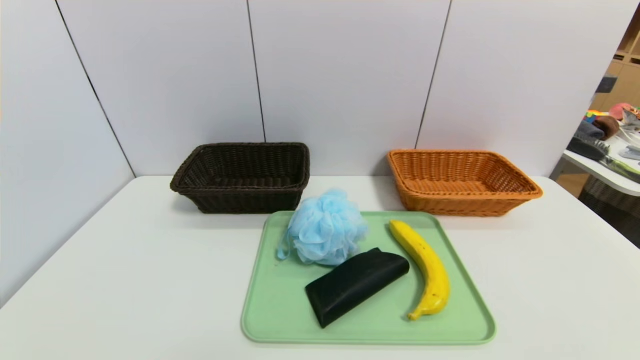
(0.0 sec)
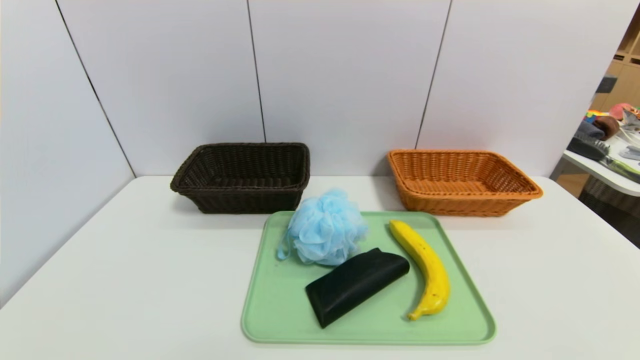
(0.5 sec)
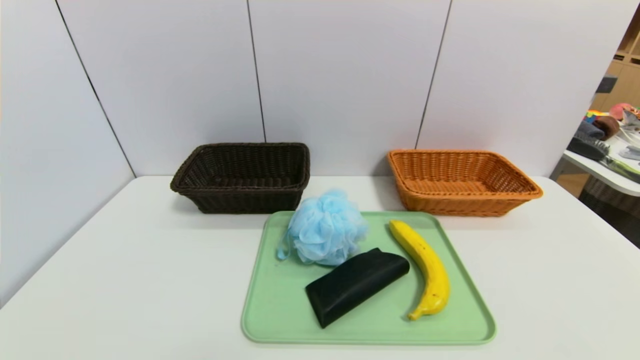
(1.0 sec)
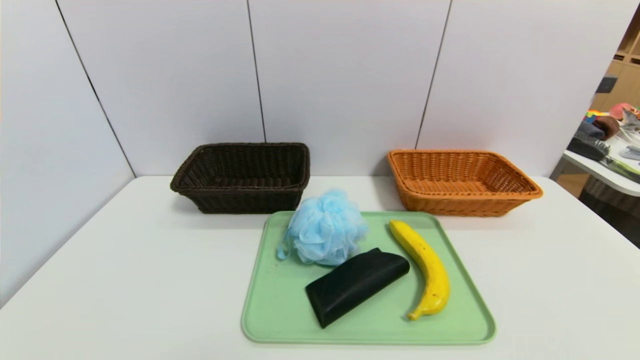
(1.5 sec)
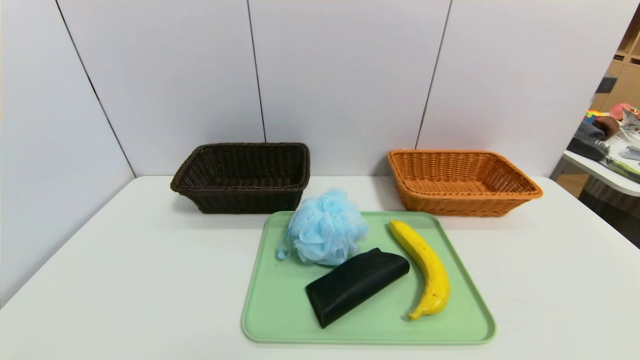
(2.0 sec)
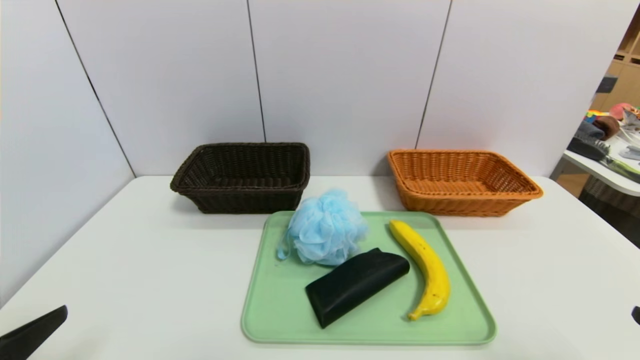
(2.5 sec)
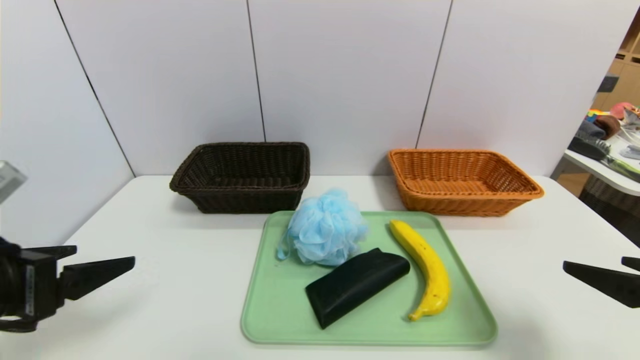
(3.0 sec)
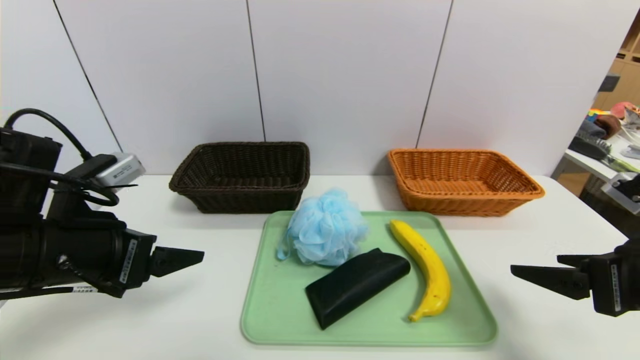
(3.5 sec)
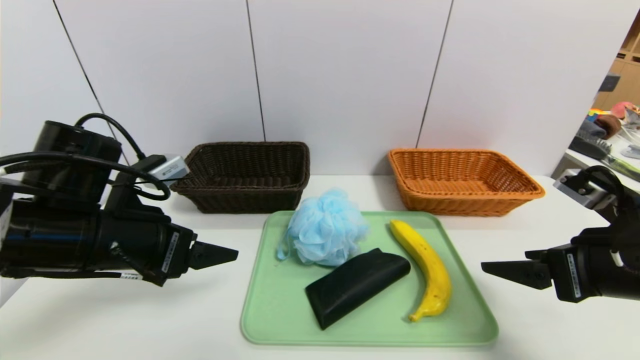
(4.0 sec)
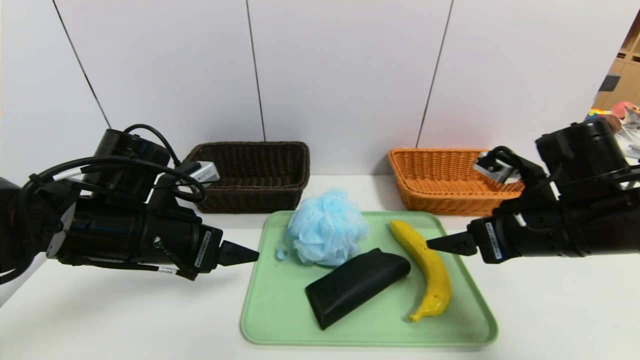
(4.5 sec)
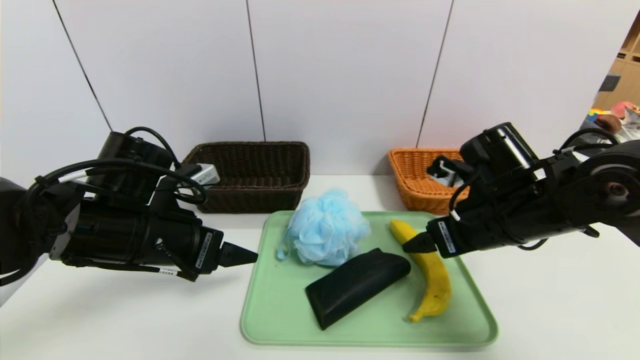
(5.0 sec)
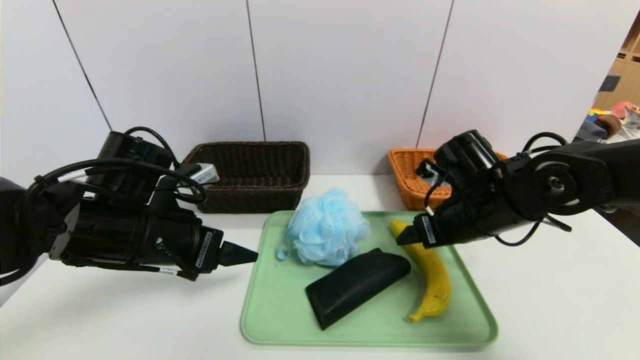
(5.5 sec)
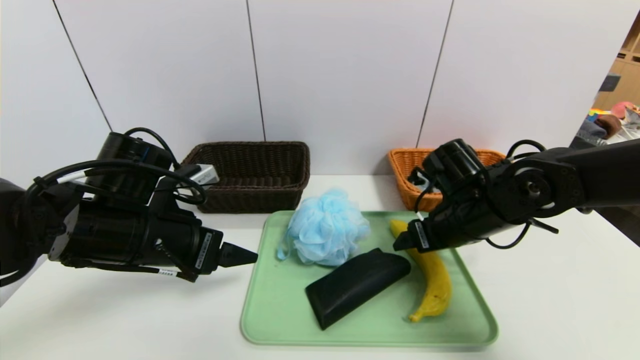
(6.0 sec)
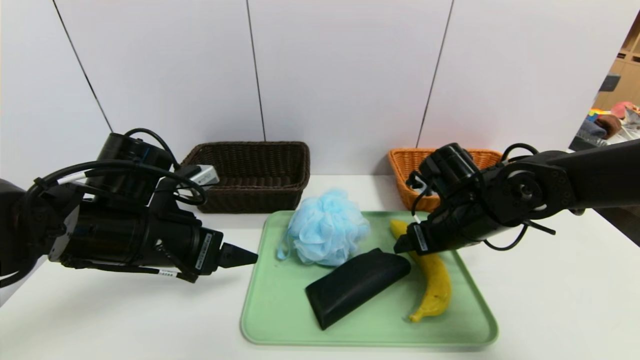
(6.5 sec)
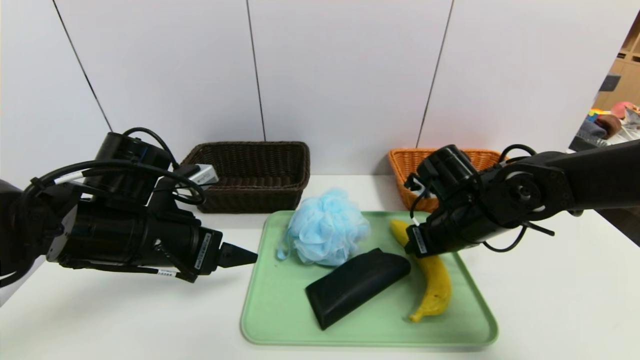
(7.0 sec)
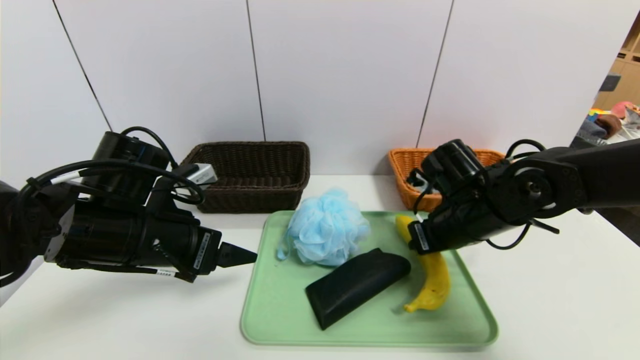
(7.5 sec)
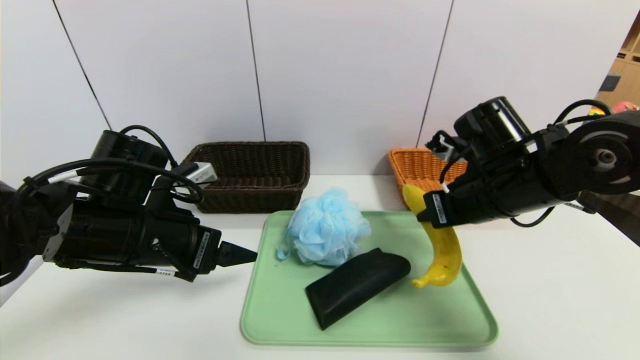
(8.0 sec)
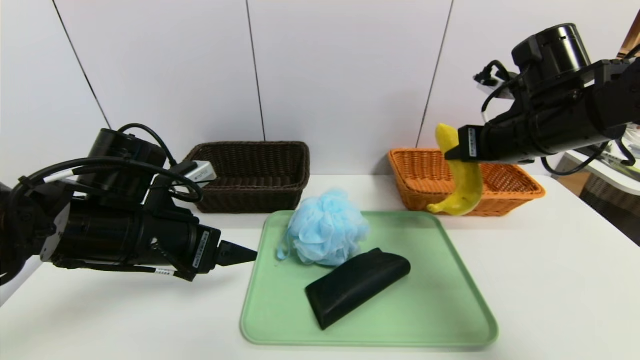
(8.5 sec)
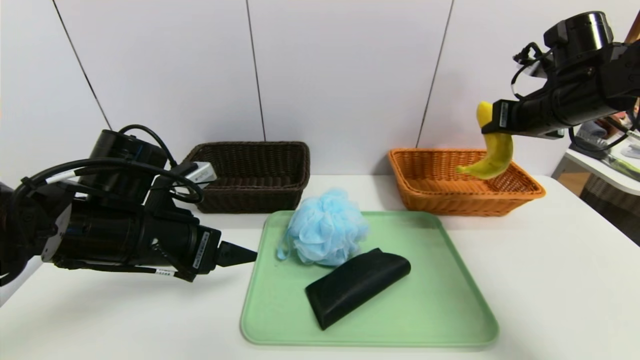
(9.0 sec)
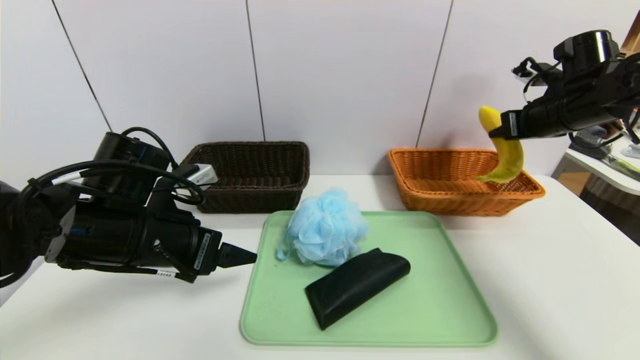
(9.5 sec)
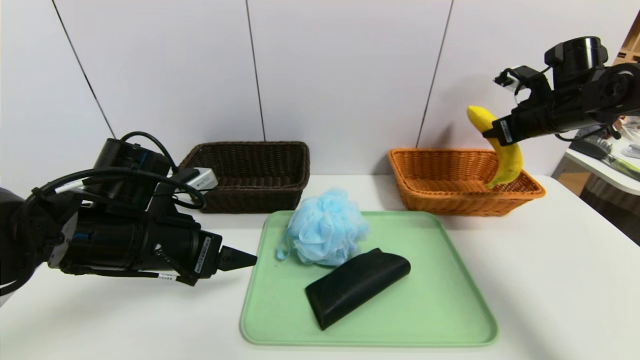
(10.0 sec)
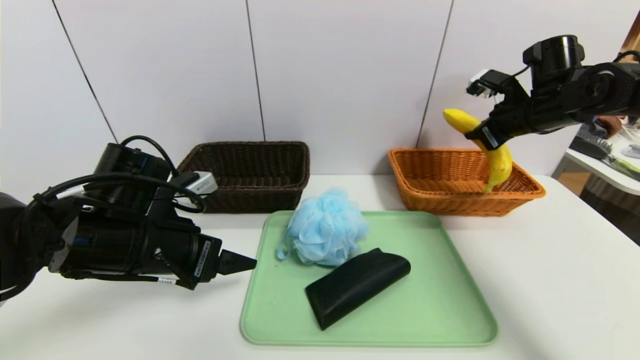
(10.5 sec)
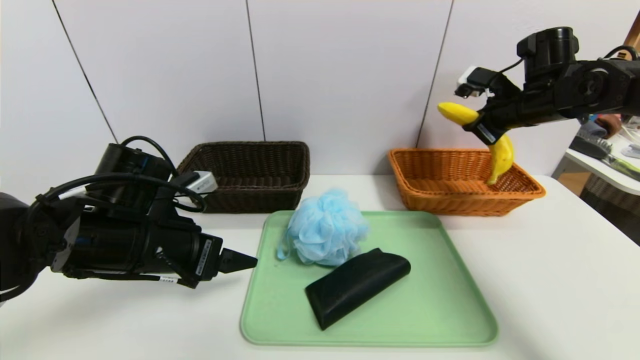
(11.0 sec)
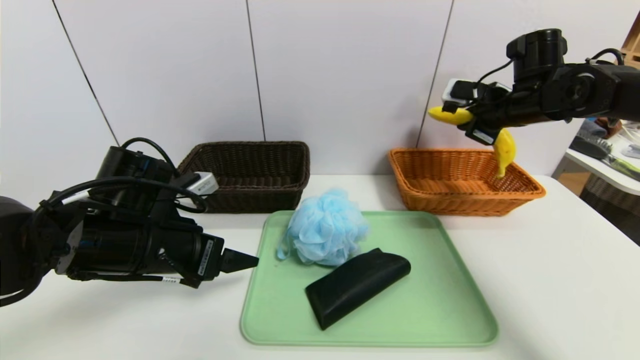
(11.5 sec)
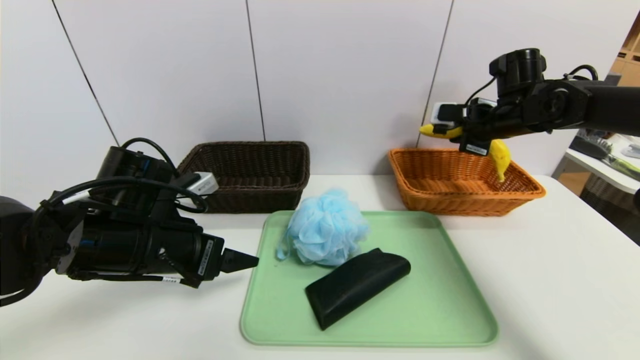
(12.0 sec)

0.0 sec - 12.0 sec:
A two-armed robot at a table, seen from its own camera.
Task of the whole recording: place the food in the right basket with the right gripper, and place the non food items in the left basket with the left gripper.
2.0 sec - 4.0 sec: Both grippers move forward, about 20 cm.
4.0 sec - 6.0 sec: The right gripper shifts about 15 cm forward and to the left.
6.0 sec - 8.0 sec: The right gripper shifts some 5 cm upward, and closes up.
8.0 sec - 10.0 sec: The right gripper travels to the right and forward by approximately 20 cm.
10.0 sec - 12.0 sec: The right gripper goes about 5 cm to the left.

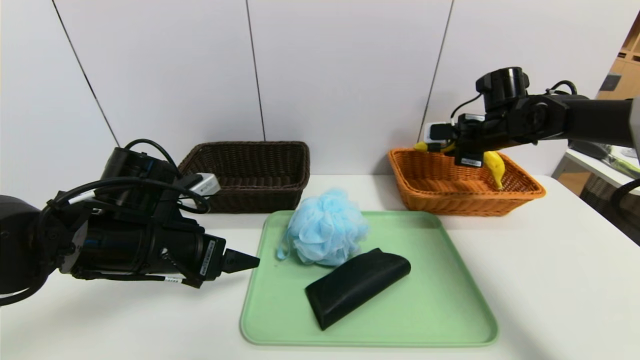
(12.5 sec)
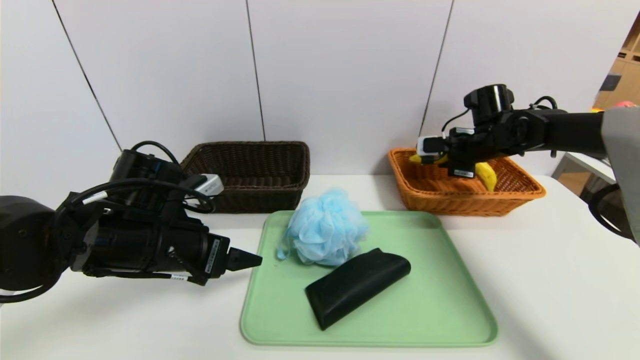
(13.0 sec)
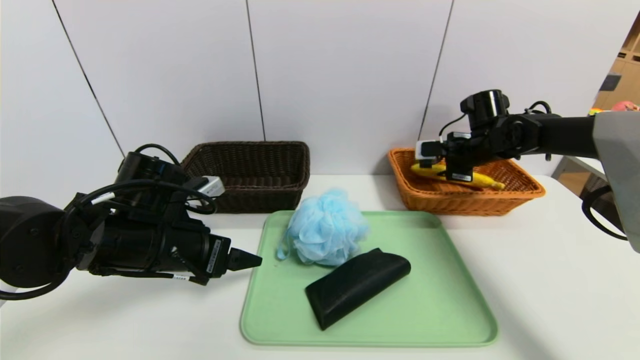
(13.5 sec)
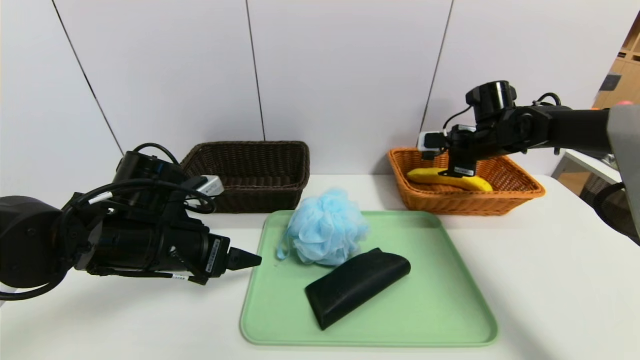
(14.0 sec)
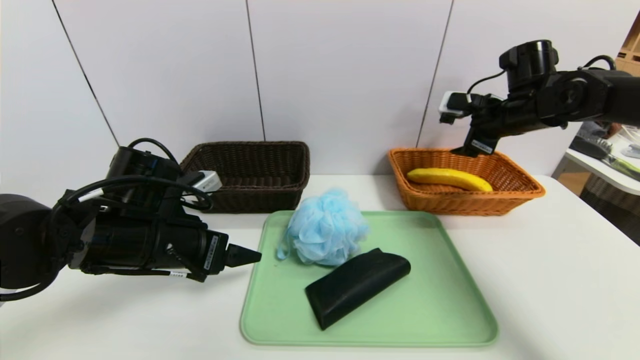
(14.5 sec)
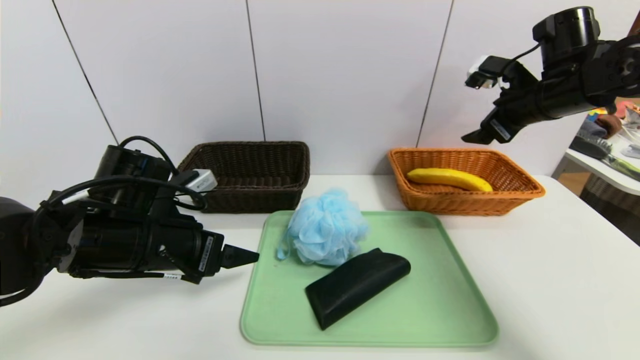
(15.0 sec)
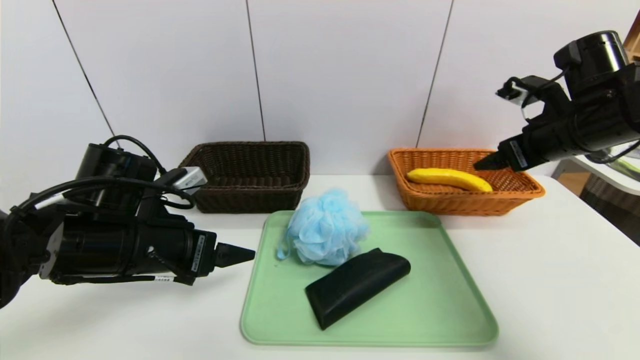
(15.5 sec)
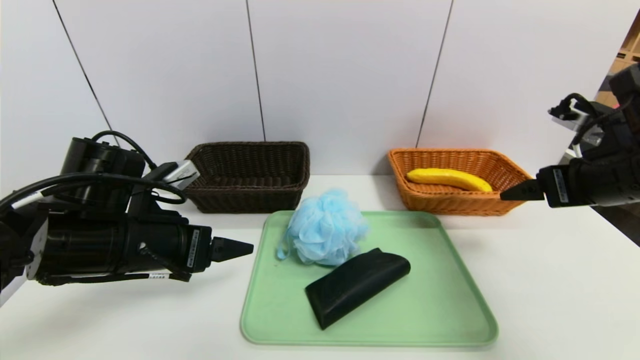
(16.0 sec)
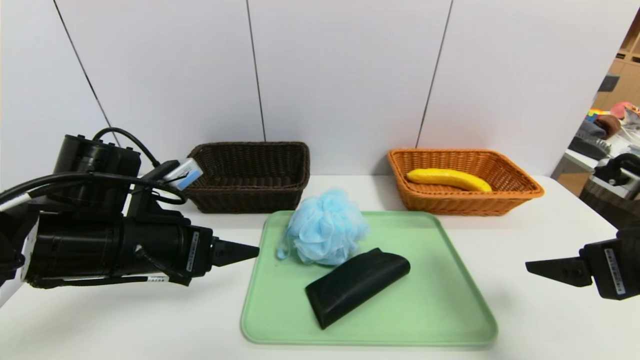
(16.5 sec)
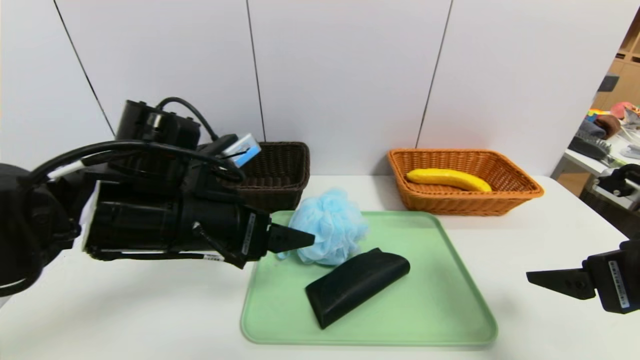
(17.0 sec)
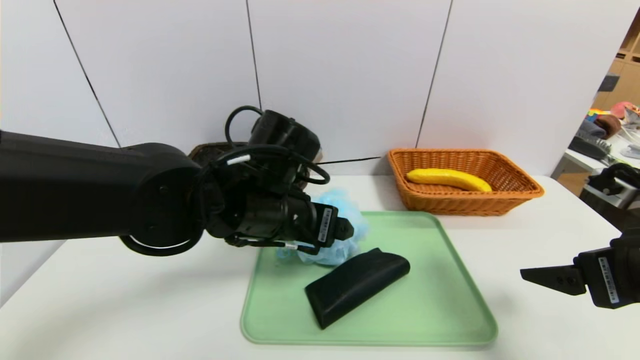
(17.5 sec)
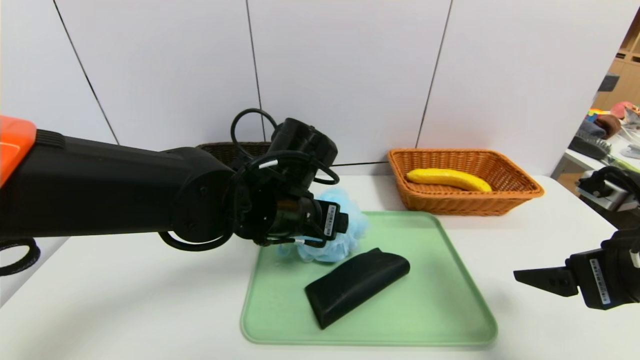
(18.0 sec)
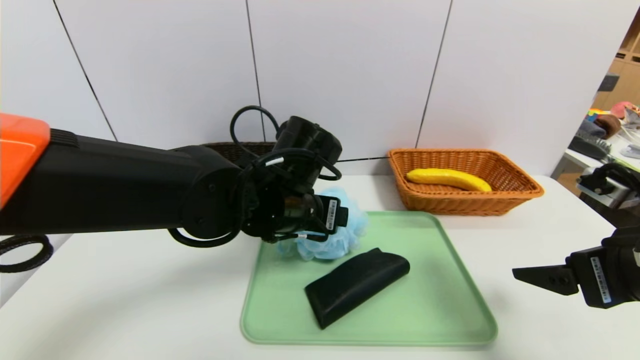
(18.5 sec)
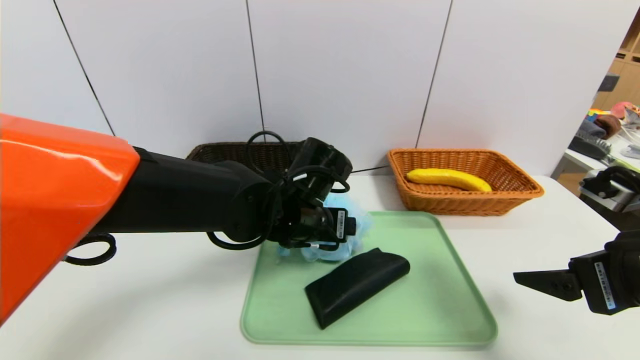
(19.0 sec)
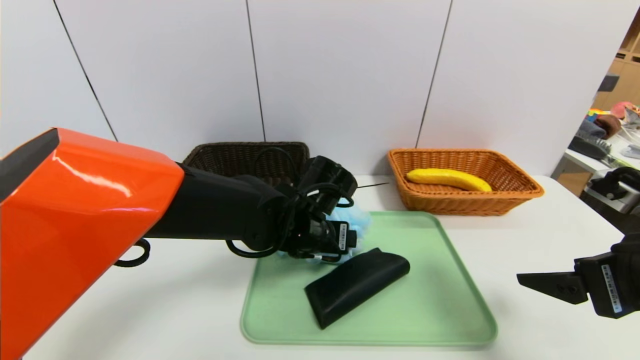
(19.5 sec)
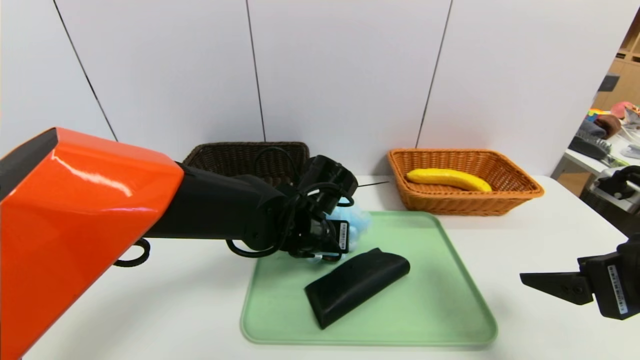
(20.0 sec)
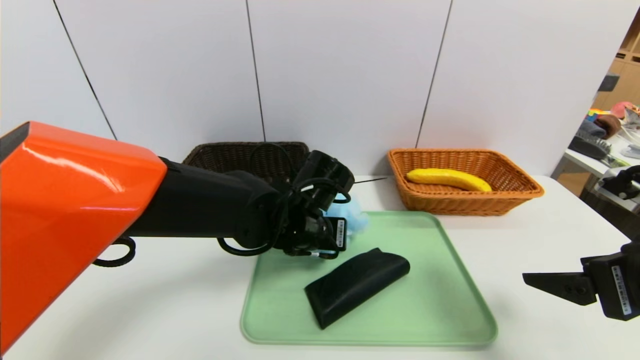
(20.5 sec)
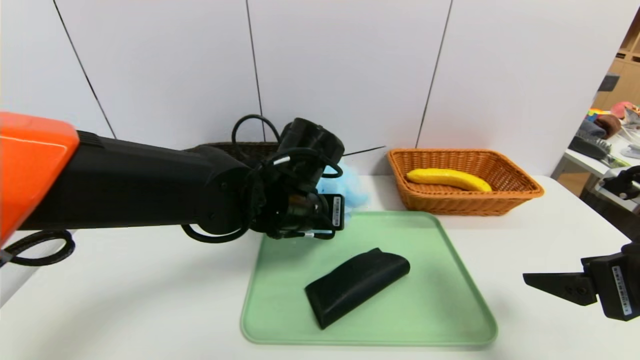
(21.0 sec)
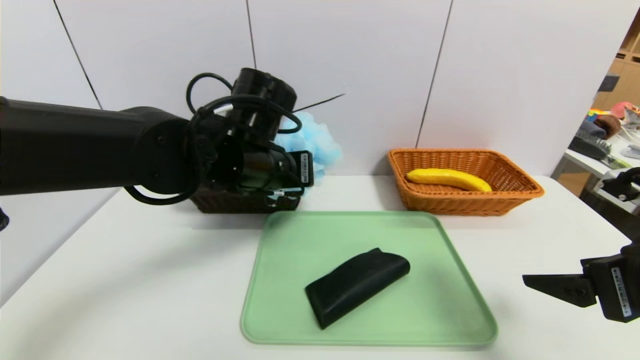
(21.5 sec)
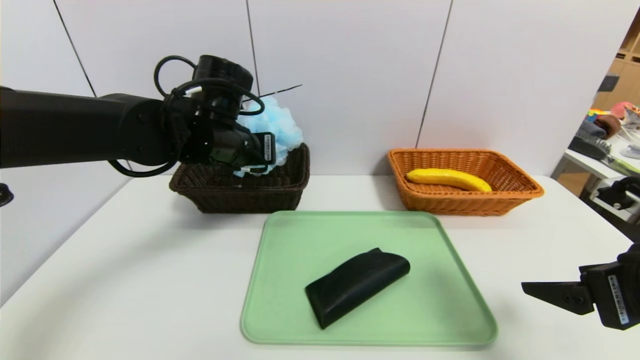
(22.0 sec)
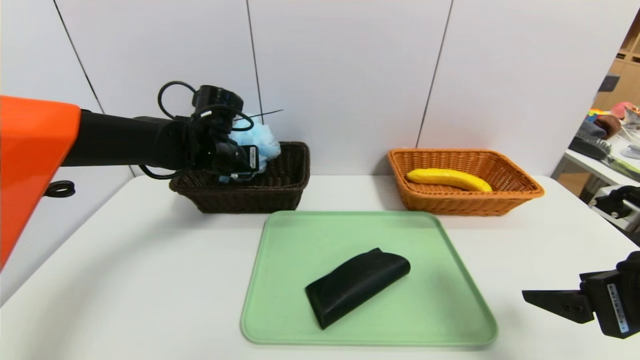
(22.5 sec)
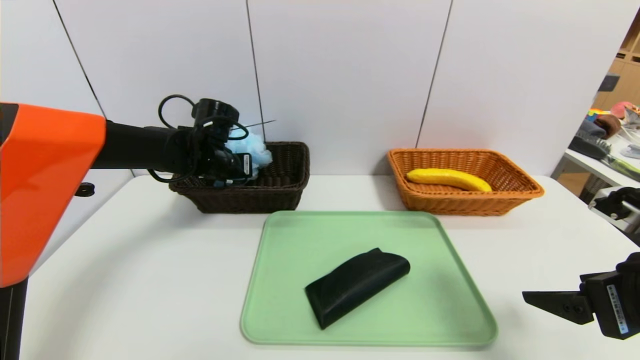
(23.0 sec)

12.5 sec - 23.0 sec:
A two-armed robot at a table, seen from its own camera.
Task of the whole recording: place the food in the right basket with the right gripper, and place the non food items in the left basket with the left gripper.
12.5 sec - 14.5 sec: The right gripper shifts by about 5 cm, and opens its fingers.
14.5 sec - 16.5 sec: The right gripper shifts approximately 25 cm backward.
16.5 sec - 19.0 sec: The left gripper shifts some 20 cm to the right and forward.
19.0 sec - 21.0 sec: The left gripper closes its fingers.
21.0 sec - 23.0 sec: The left gripper shifts roughly 20 cm to the left and forward.
